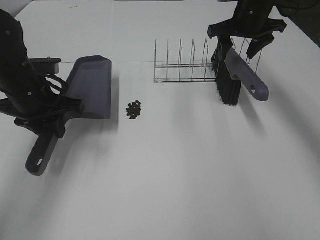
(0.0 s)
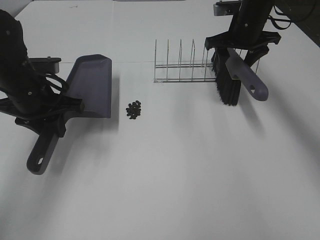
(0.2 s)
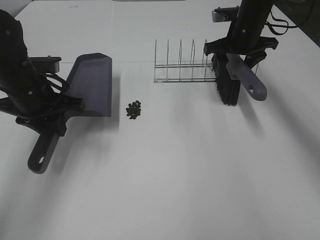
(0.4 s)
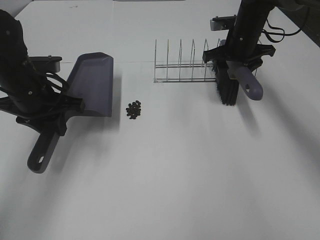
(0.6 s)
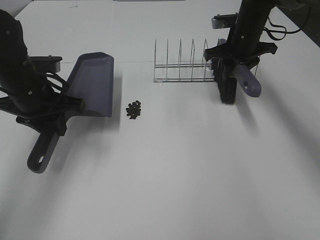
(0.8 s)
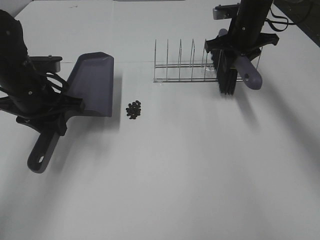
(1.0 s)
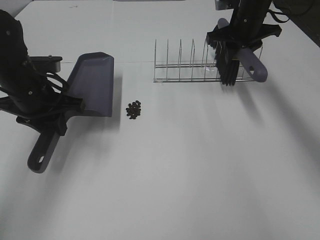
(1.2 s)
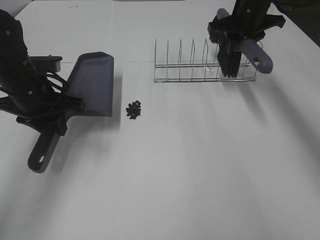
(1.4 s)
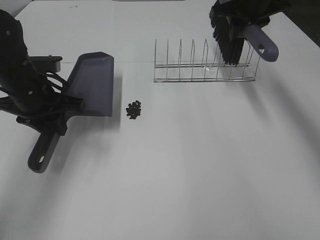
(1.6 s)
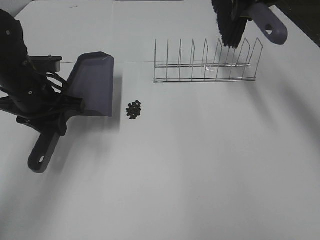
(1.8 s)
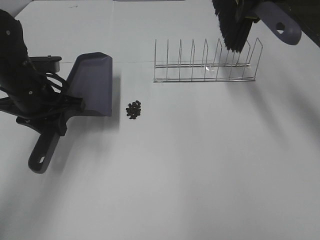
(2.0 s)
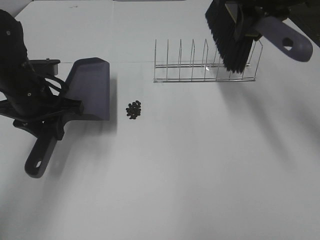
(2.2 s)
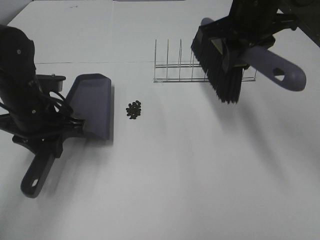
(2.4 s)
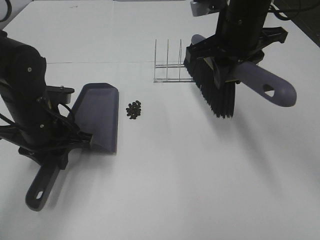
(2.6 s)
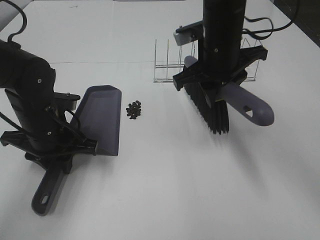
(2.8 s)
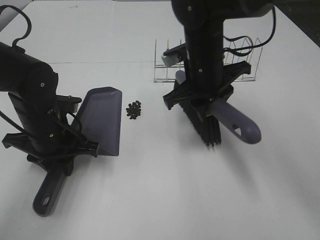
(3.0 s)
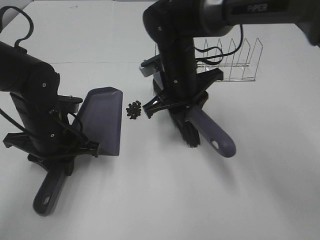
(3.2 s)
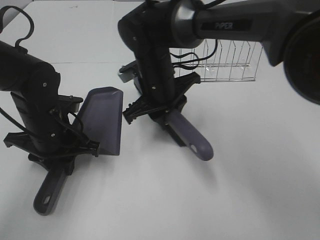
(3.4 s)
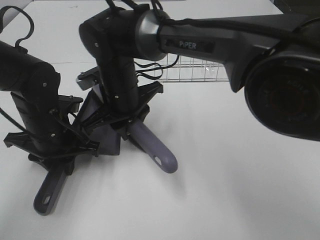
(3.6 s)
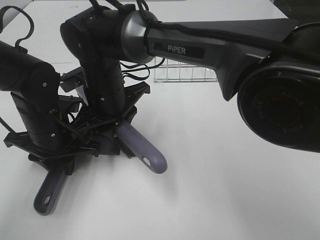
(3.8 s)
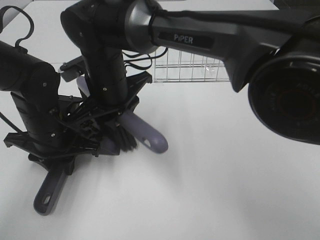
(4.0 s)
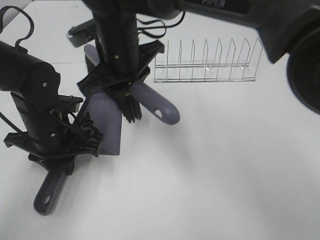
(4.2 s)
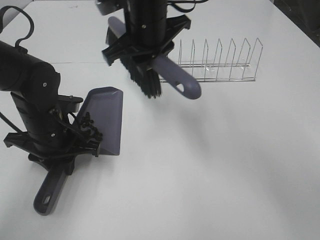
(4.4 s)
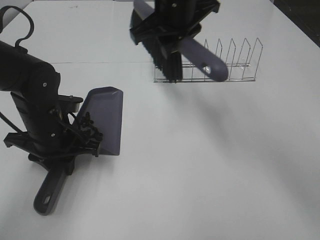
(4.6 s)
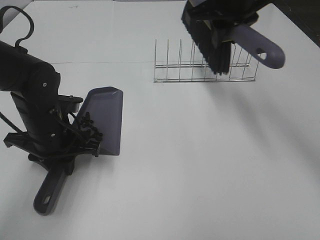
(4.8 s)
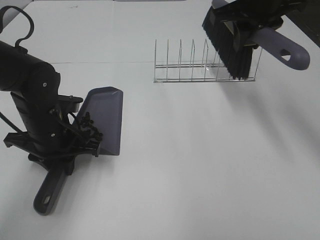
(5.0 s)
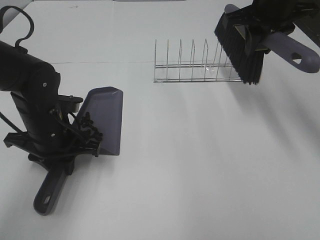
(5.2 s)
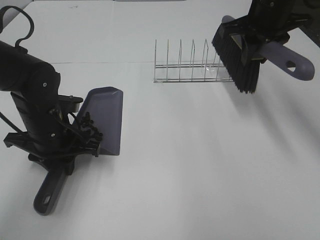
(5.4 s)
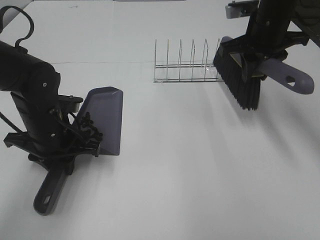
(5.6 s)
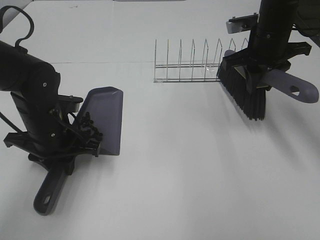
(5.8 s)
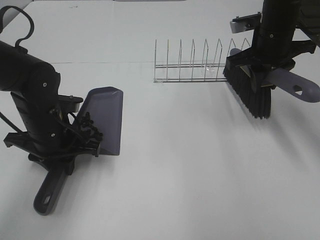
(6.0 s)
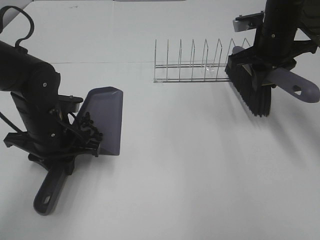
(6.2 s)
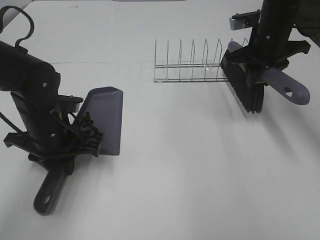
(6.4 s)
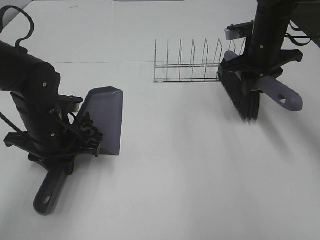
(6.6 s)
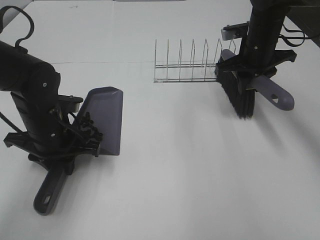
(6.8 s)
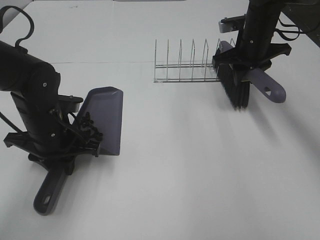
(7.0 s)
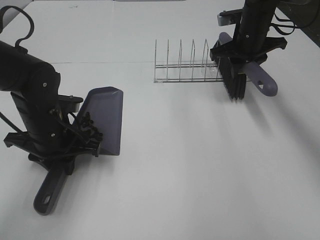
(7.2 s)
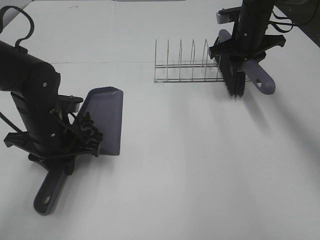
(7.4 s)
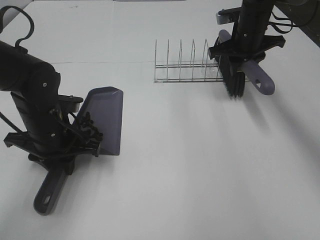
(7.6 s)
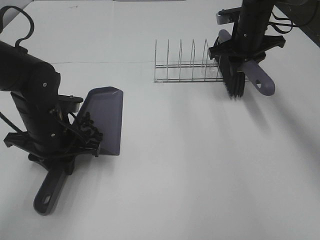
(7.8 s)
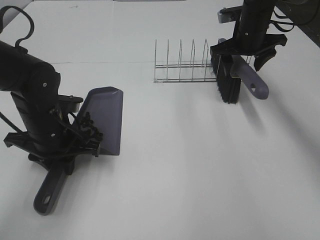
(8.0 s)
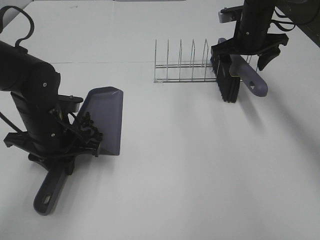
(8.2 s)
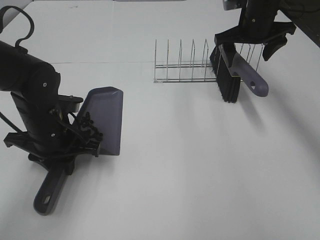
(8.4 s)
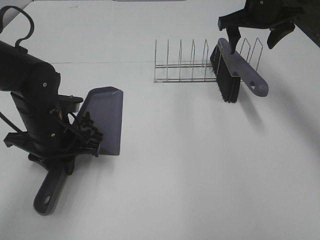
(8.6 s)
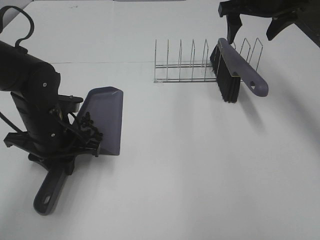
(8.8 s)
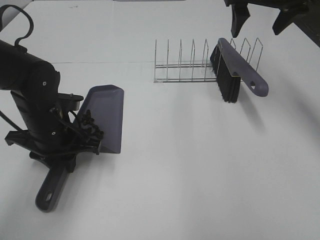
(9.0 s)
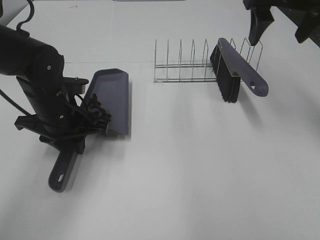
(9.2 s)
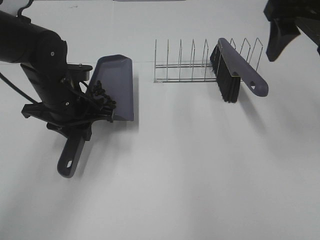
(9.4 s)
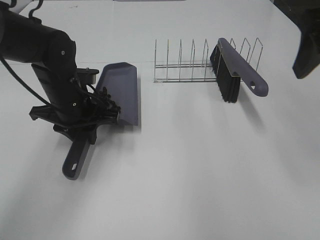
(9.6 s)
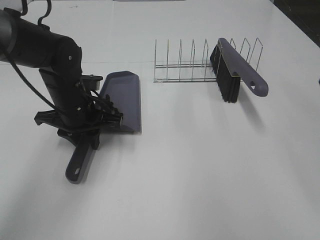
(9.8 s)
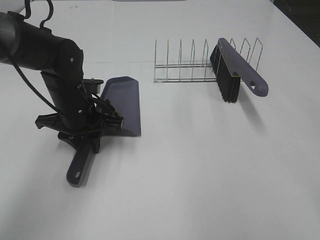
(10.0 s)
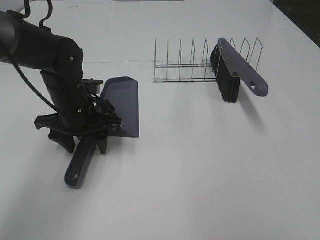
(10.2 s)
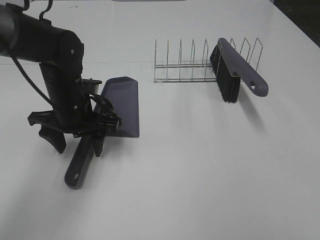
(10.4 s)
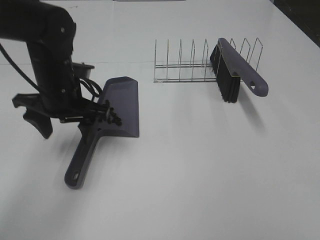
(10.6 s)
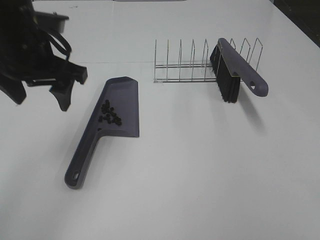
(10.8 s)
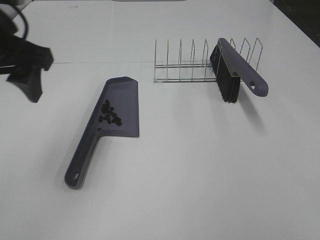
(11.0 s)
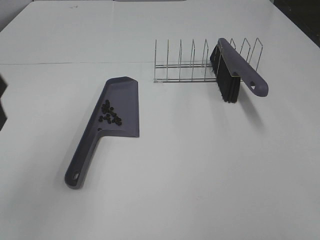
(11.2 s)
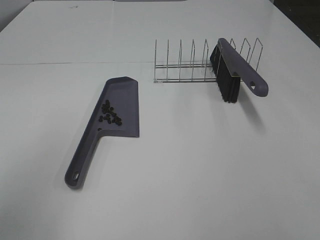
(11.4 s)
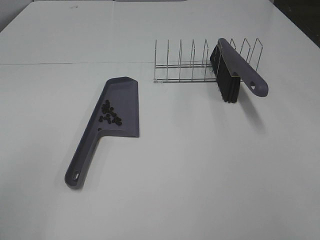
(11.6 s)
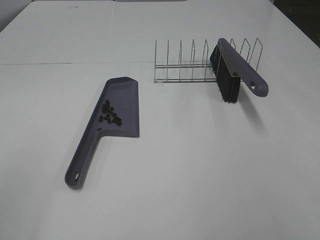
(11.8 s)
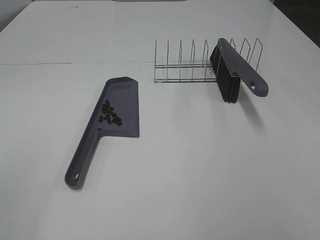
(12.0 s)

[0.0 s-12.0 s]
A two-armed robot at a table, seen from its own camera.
Task of the whole recording: Sweep Coffee Bean.
Step, 1.0 to 4.0 s: Right hand:sweep the coffee beans into the dustpan.
Step, 4.2 to 8.0 s: Right hand:place the broom on the rack.
Step, 8.2 to 10.2 s: Left hand:place the dustpan on the table.
0.0 to 1.6 s: The right gripper closes.
1.6 to 3.0 s: The right gripper shifts some 20 cm backward, to the left and downward, while the left gripper travels downward by approximately 5 cm.
3.0 to 4.4 s: The right gripper shifts some 10 cm to the left and upward.
4.4 to 6.0 s: The right gripper shifts about 20 cm to the right.
6.0 to 7.6 s: The right gripper goes some 10 cm forward.
7.6 to 9.0 s: The right gripper shifts some 15 cm upward and backward, and opens its fingers.
9.0 to 10.4 s: The right gripper moves backward, approximately 40 cm. Meanwhile the left gripper shifts by approximately 5 cm, and opens up.
10.4 to 12.0 s: The left gripper travels backward, to the left and upward by some 40 cm.

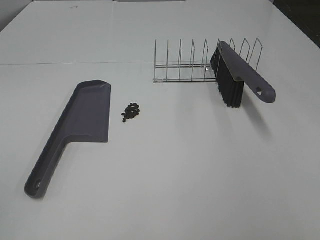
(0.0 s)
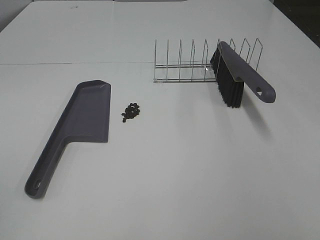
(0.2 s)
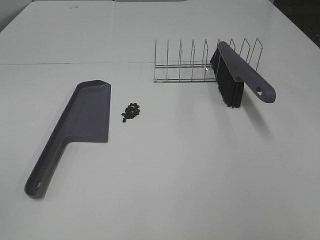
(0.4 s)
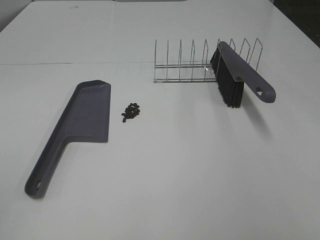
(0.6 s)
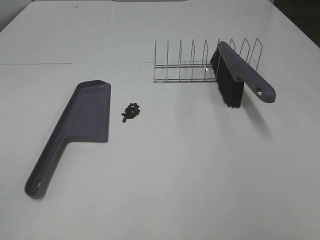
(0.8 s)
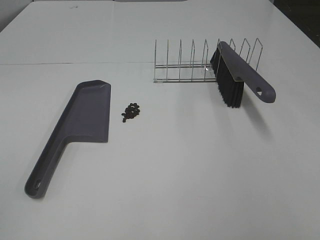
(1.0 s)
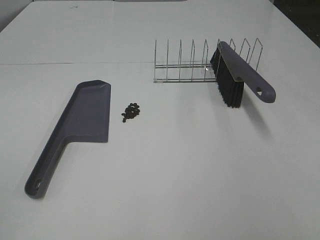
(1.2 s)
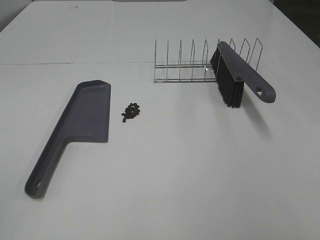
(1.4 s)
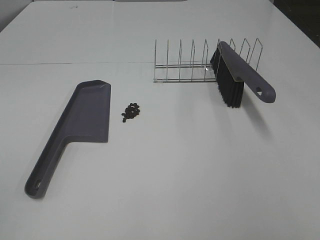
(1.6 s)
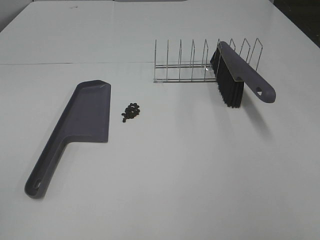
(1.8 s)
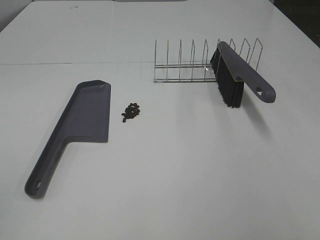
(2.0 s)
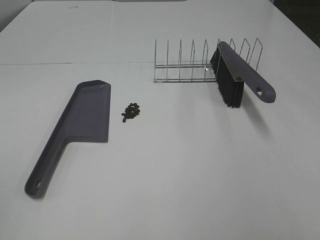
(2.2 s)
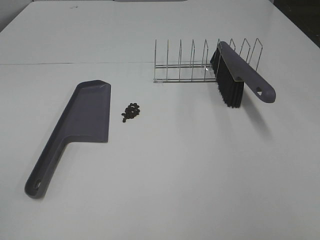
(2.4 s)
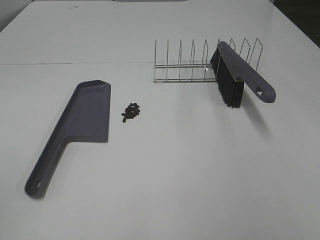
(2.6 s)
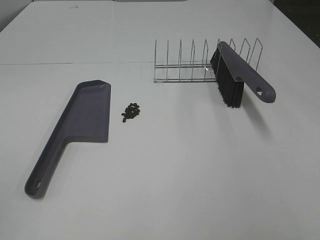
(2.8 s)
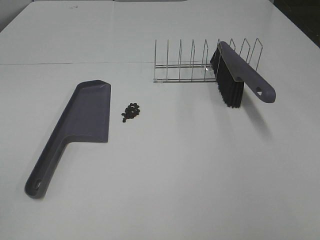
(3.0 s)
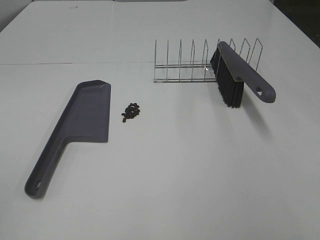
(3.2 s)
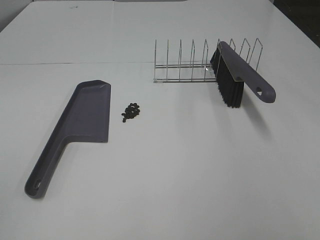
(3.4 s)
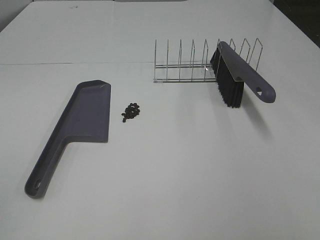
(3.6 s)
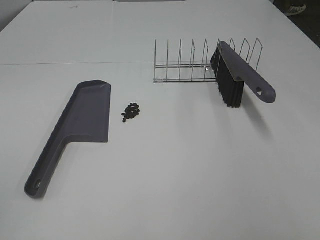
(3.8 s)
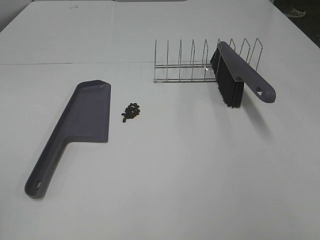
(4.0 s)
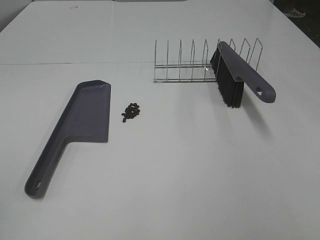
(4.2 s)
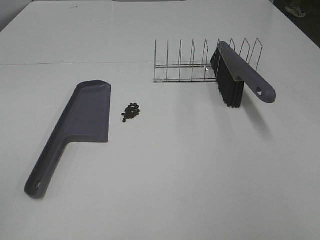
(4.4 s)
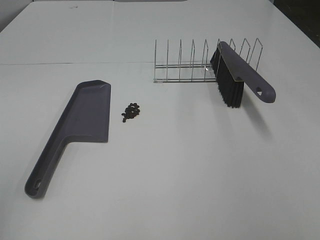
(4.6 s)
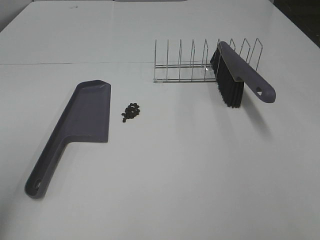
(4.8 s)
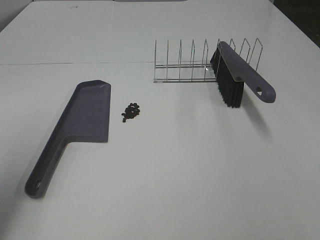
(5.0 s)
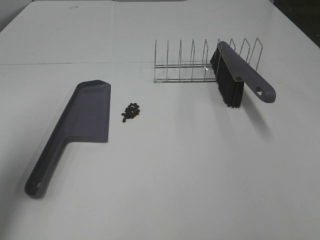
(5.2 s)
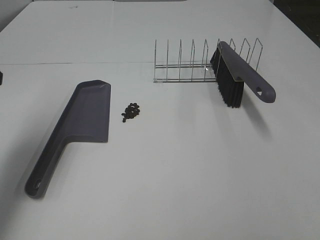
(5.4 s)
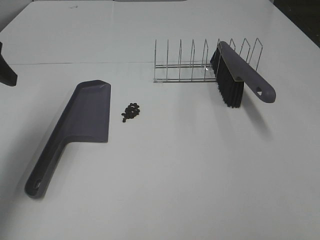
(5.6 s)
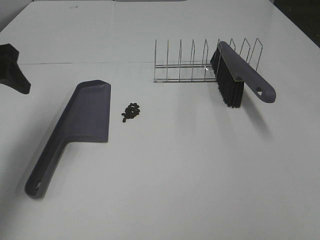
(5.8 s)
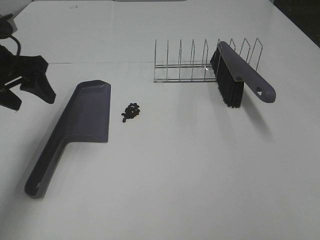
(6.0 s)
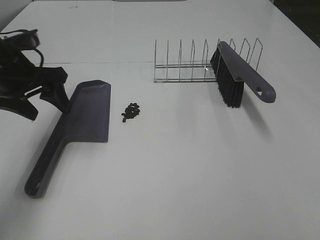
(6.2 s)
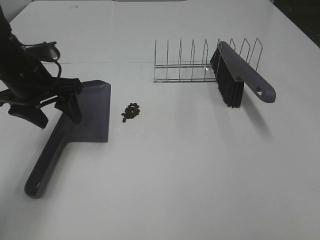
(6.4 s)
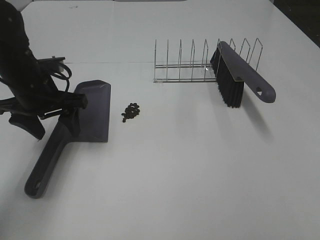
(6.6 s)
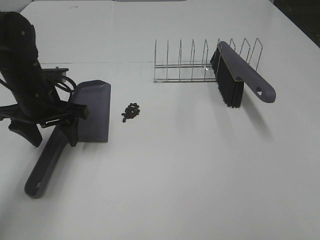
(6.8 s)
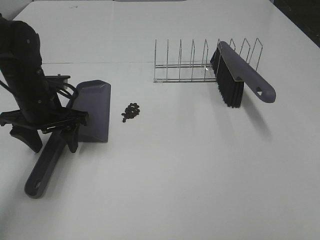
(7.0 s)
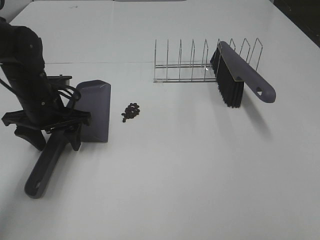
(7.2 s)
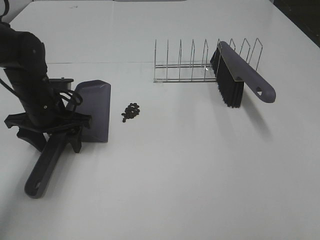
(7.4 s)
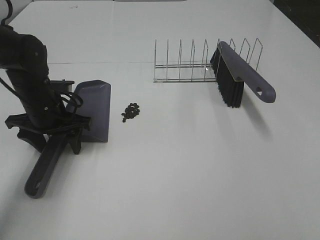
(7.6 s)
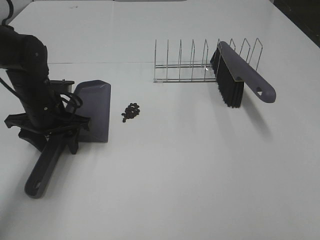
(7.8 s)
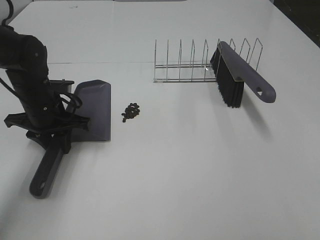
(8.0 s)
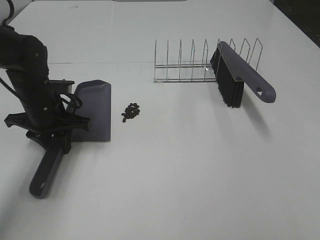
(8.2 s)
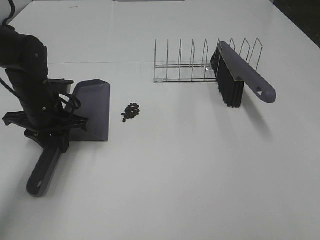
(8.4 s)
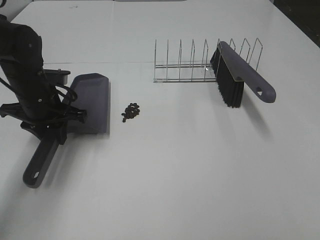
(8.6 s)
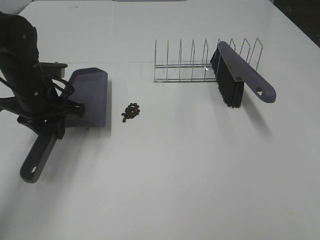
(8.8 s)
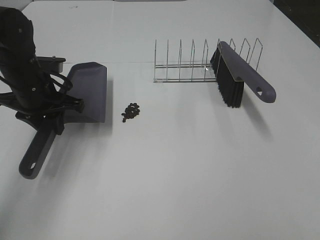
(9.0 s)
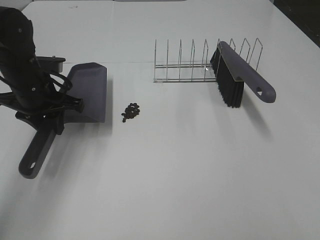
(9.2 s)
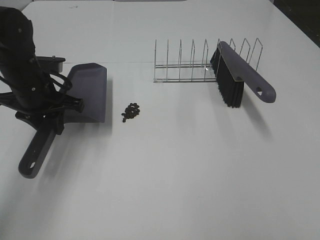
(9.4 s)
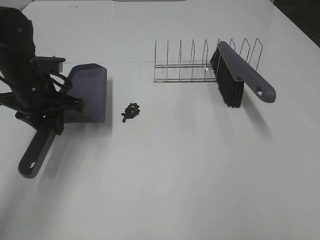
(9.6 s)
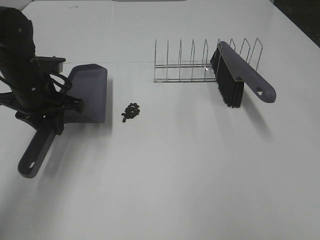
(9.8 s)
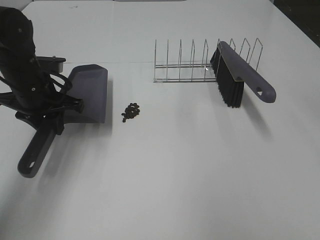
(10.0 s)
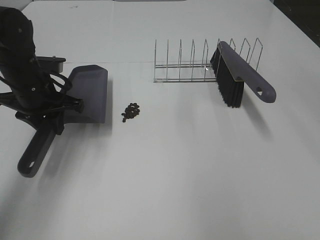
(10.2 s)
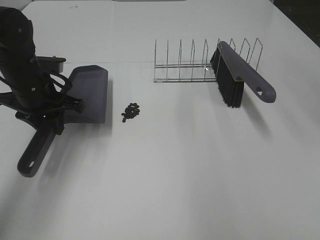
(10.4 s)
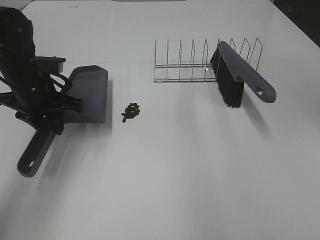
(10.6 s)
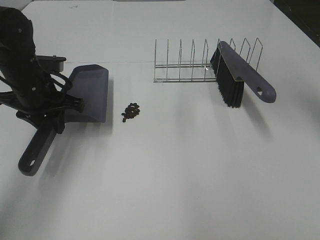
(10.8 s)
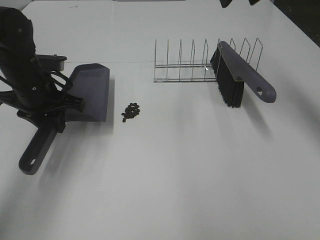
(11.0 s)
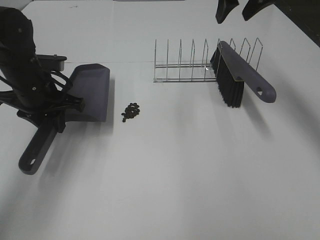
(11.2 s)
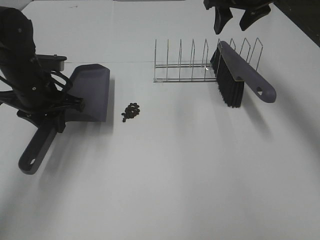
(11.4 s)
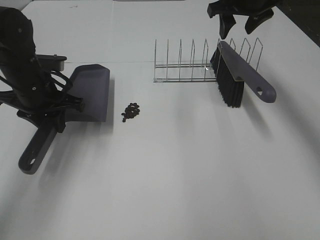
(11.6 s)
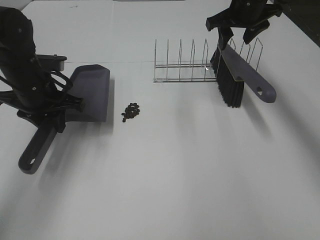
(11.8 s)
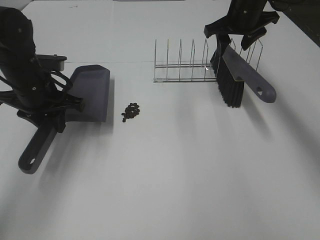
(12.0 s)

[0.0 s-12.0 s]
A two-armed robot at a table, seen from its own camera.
Task of the whole recording: Sweep Coffee Bean.
Step, 0.0 to 8.0 s: Left hand: grab the dustpan.
0.0 to 4.4 s: The two grippers keep their place.
4.4 to 6.0 s: The left gripper goes about 35 cm forward.
6.0 to 7.6 s: The left gripper shifts some 15 cm downward and to the right.
7.6 to 9.0 s: The left gripper closes.
10.4 to 12.0 s: The right gripper travels forward and downward by some 30 cm.
